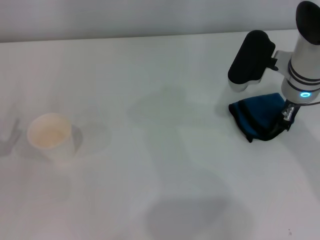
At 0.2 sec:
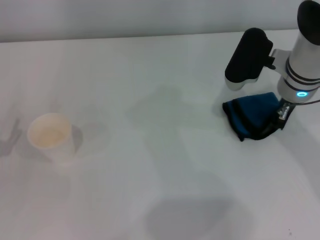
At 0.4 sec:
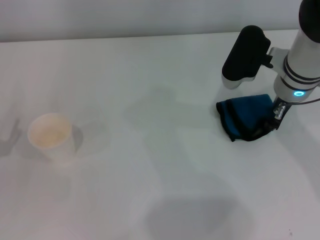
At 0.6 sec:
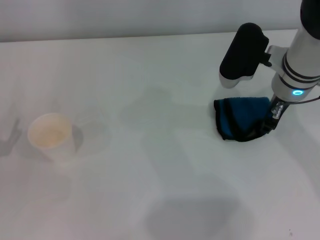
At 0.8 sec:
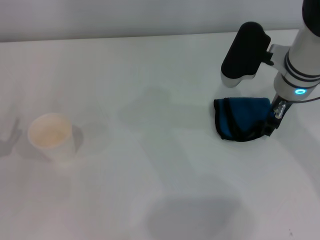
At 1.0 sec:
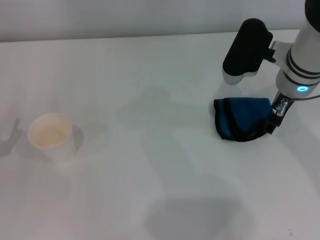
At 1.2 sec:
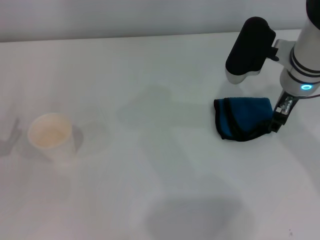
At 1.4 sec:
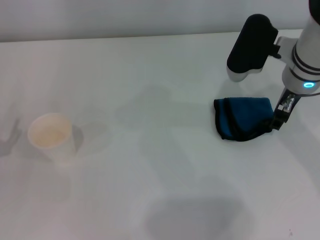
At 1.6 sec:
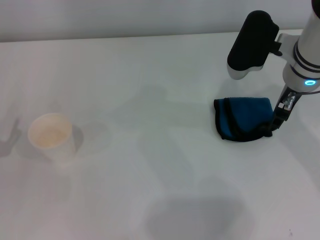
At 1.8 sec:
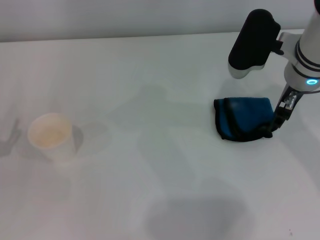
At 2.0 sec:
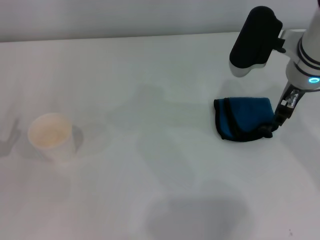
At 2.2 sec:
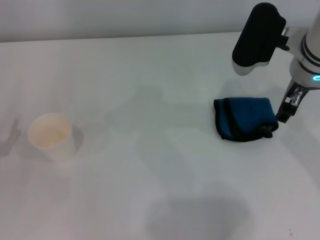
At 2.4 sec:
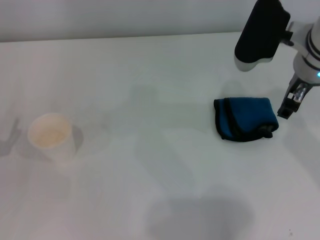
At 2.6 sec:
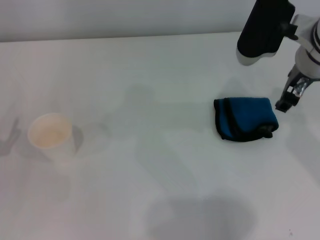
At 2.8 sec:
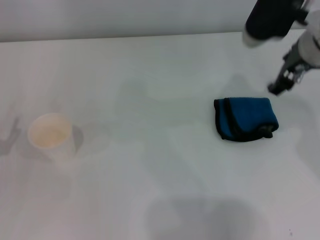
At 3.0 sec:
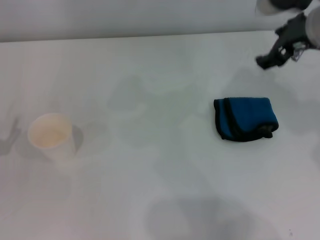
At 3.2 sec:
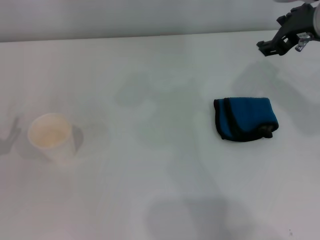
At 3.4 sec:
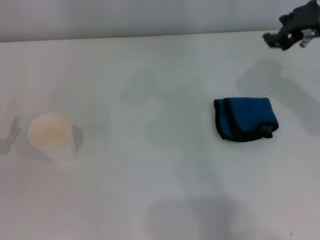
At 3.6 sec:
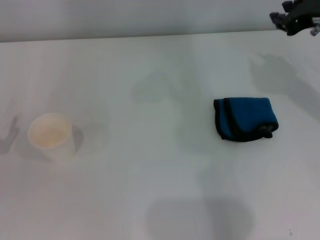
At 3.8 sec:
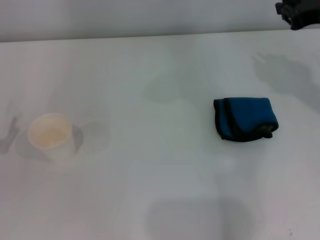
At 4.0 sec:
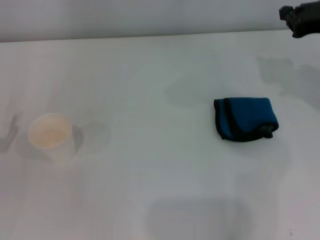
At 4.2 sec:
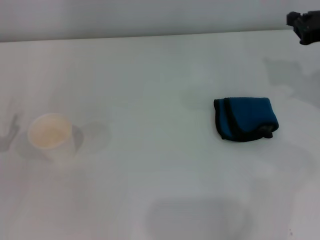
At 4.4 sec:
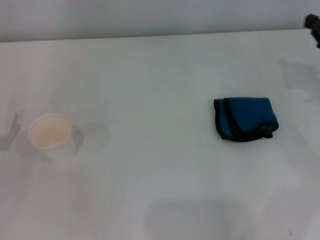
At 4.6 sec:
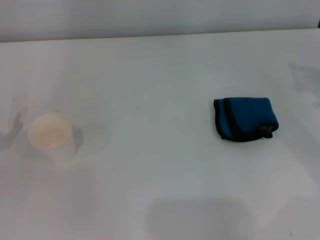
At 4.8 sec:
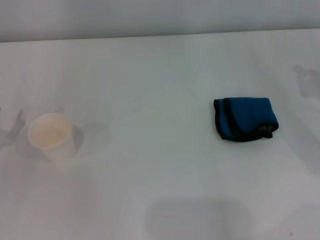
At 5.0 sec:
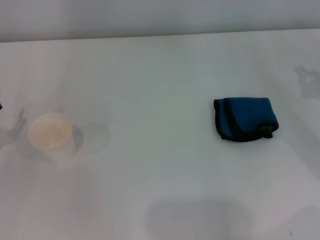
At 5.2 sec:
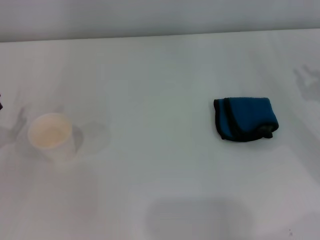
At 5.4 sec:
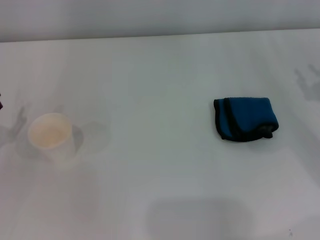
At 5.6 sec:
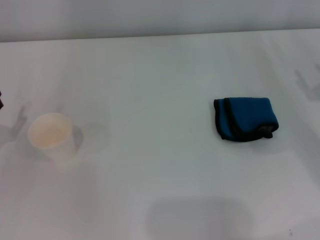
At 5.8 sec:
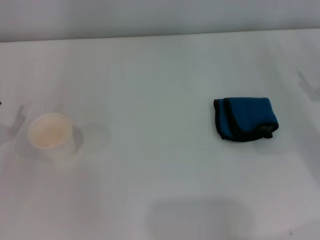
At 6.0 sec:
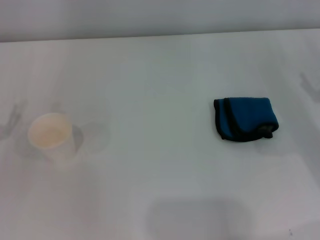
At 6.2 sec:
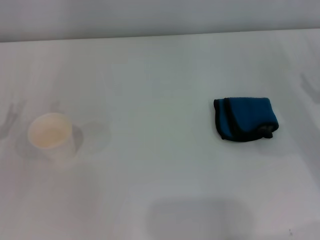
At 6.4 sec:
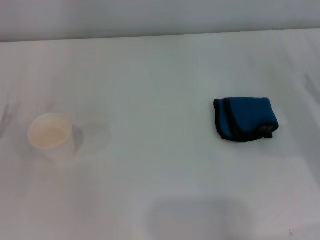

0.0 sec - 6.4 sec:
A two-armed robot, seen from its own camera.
Step, 0.4 sec - 1.0 sec: Place the rag on the table with the right gripper.
0.0 sec - 1.6 sec: The right gripper opens.
1.6 sec - 3.2 sec: The right gripper heads upward, covering roughly 5 cm.
3.2 sec - 4.8 sec: The right gripper goes some 20 cm to the right, downward and backward, and closes.
